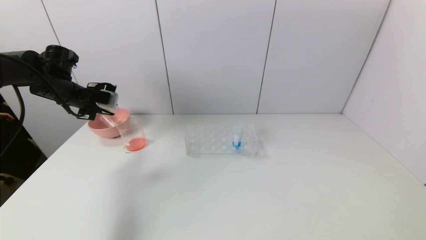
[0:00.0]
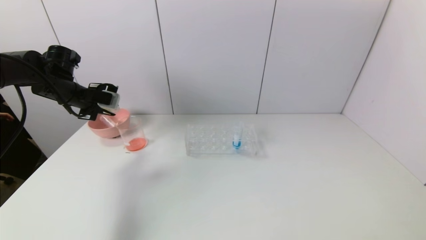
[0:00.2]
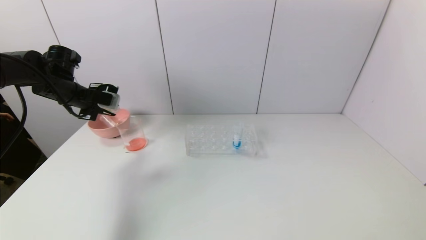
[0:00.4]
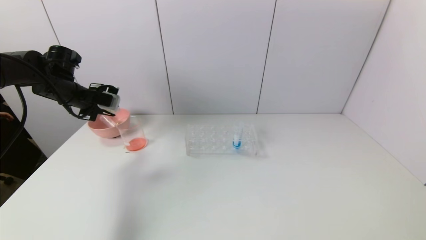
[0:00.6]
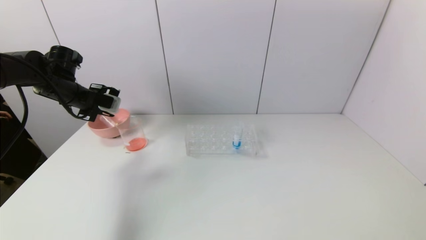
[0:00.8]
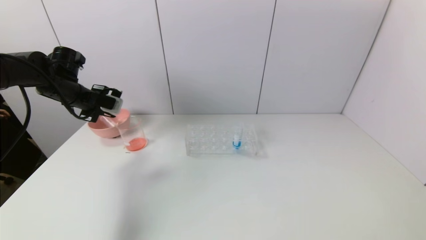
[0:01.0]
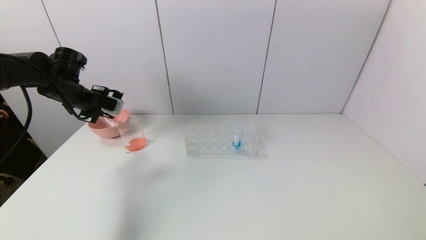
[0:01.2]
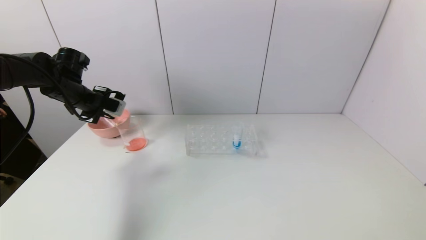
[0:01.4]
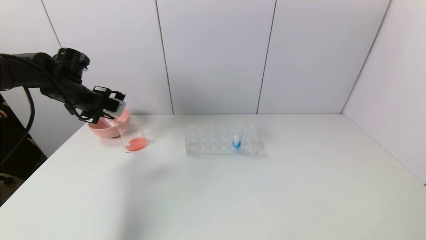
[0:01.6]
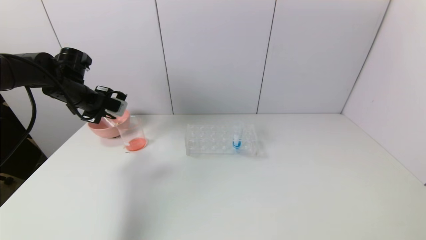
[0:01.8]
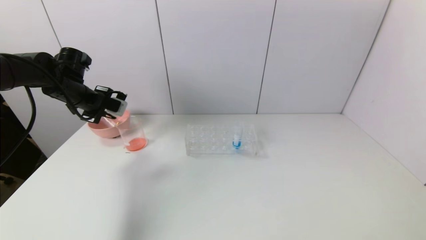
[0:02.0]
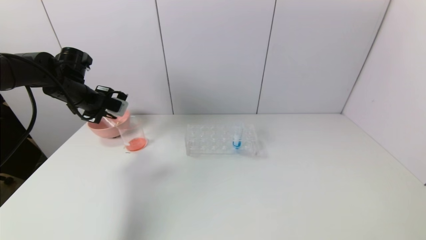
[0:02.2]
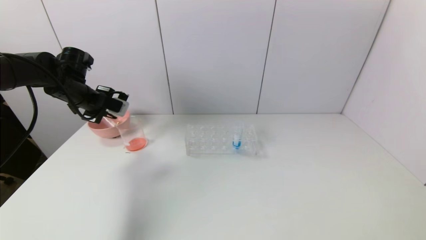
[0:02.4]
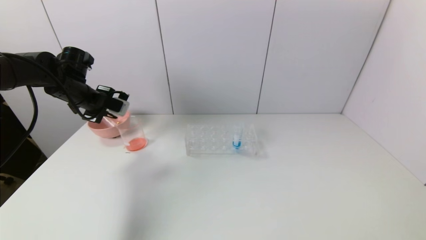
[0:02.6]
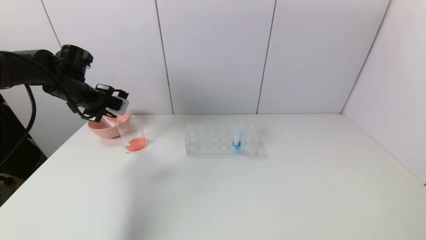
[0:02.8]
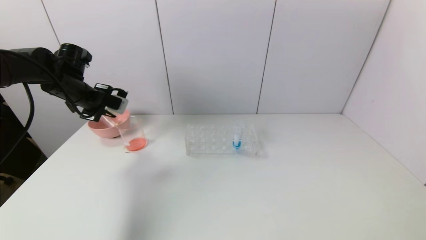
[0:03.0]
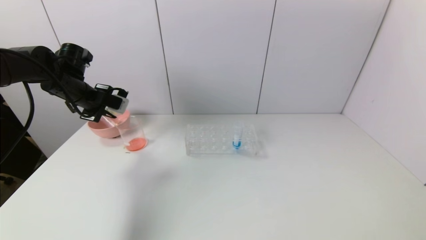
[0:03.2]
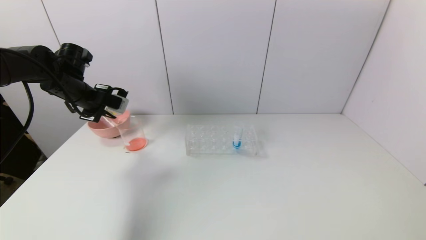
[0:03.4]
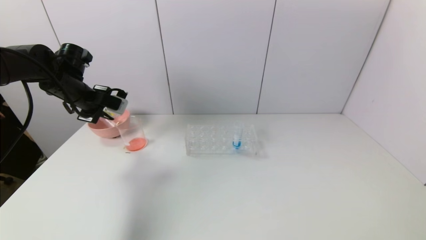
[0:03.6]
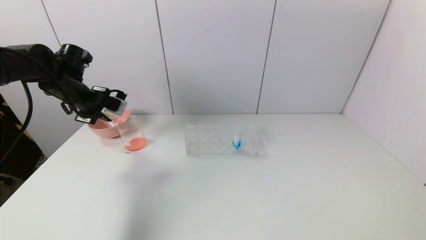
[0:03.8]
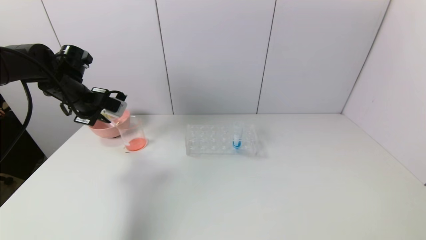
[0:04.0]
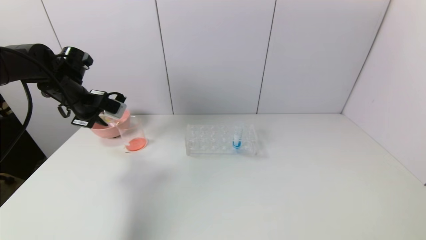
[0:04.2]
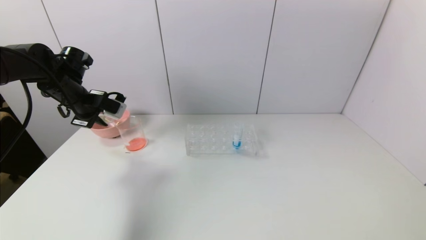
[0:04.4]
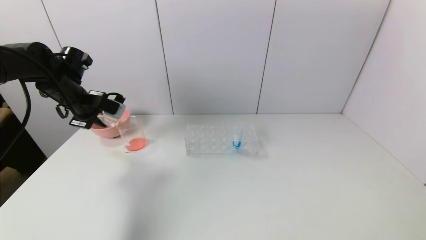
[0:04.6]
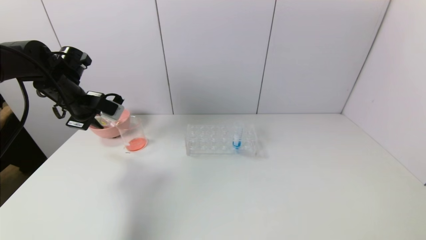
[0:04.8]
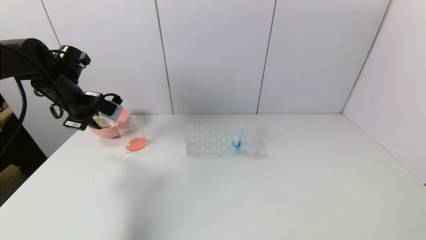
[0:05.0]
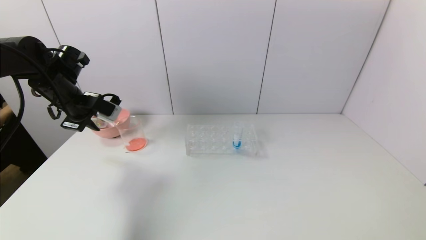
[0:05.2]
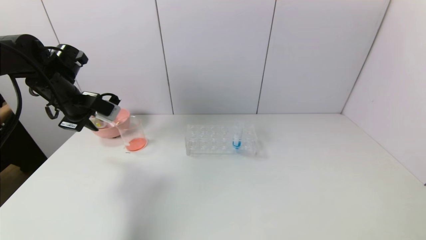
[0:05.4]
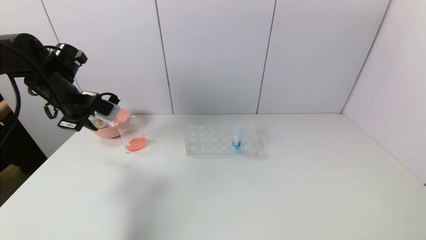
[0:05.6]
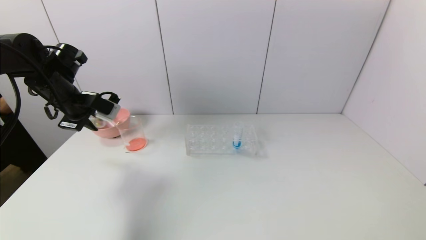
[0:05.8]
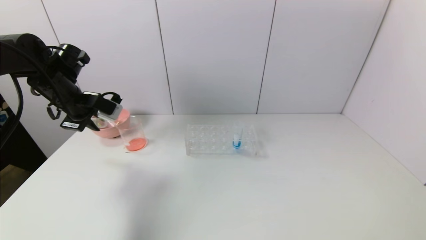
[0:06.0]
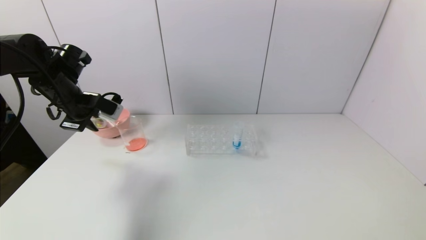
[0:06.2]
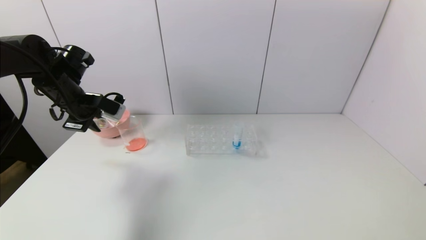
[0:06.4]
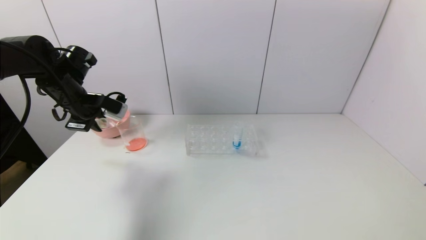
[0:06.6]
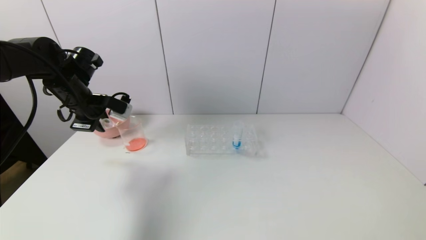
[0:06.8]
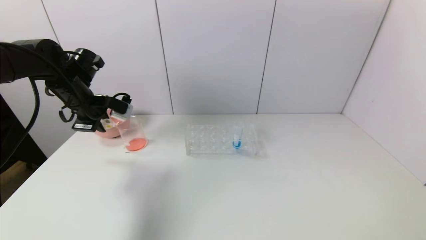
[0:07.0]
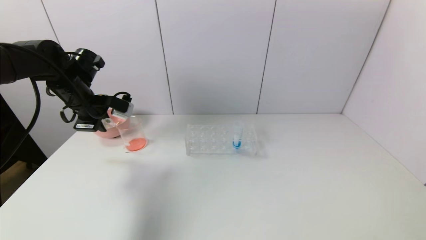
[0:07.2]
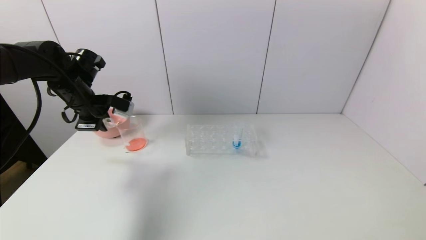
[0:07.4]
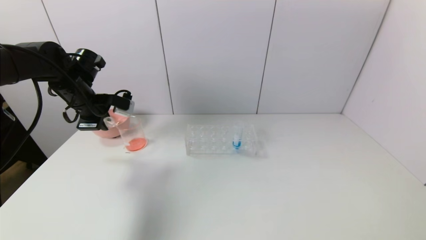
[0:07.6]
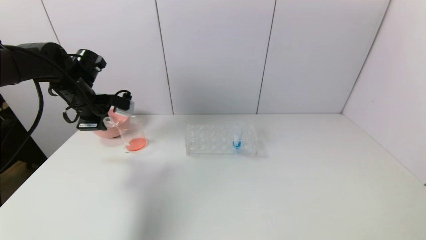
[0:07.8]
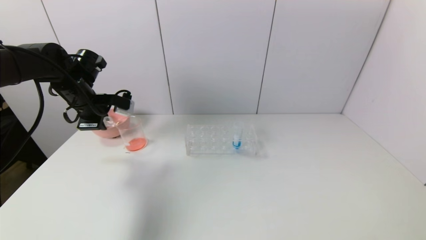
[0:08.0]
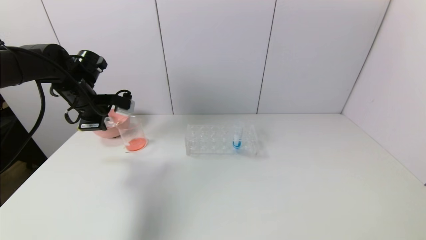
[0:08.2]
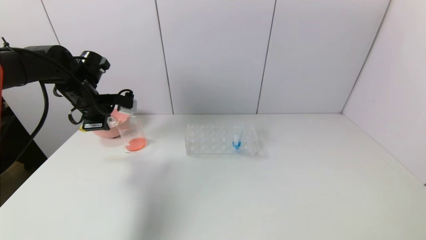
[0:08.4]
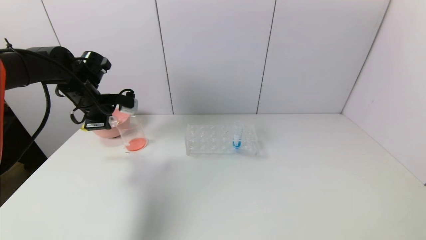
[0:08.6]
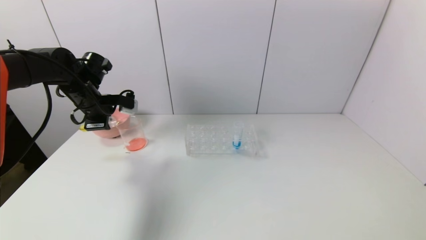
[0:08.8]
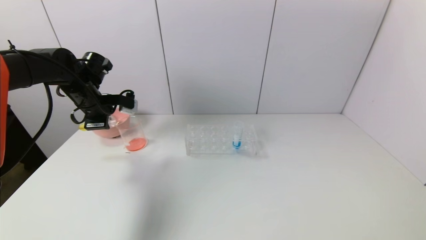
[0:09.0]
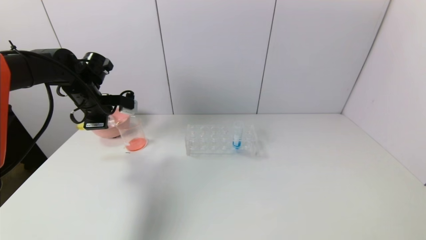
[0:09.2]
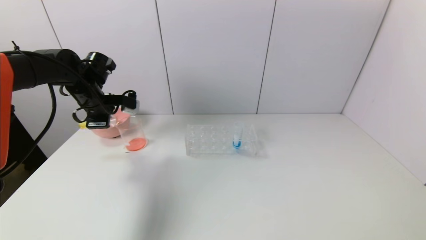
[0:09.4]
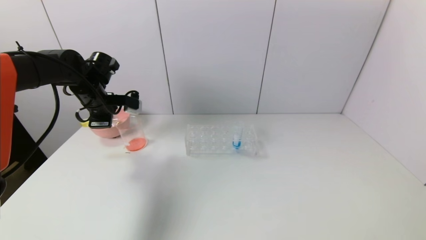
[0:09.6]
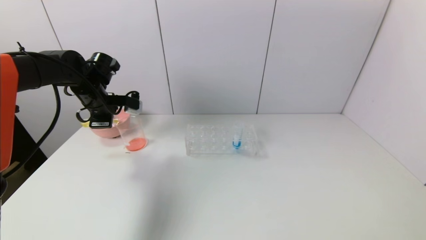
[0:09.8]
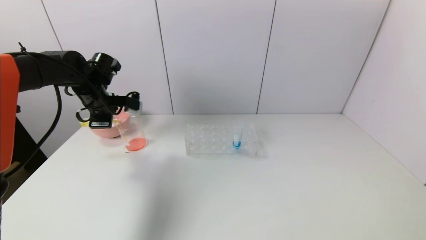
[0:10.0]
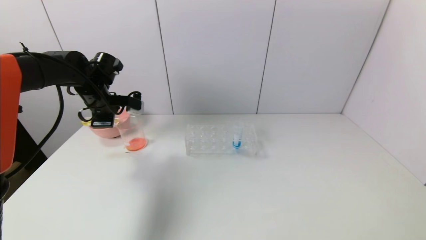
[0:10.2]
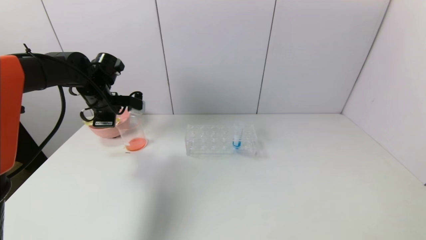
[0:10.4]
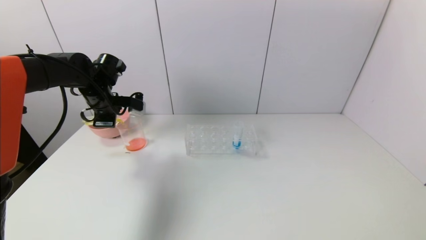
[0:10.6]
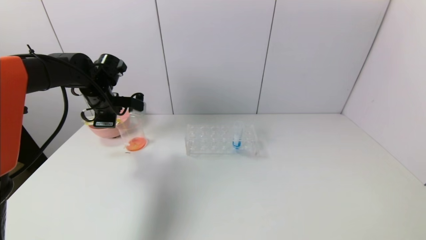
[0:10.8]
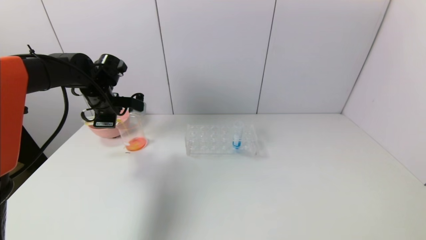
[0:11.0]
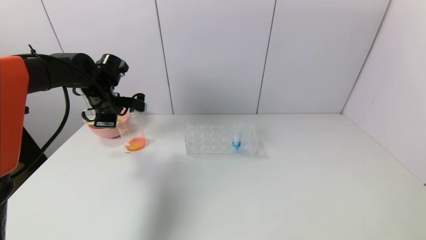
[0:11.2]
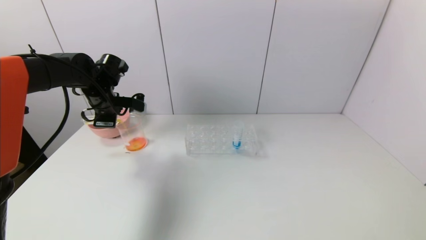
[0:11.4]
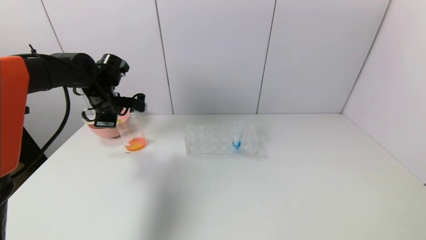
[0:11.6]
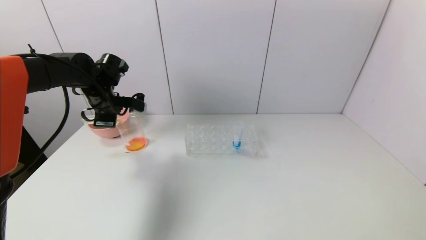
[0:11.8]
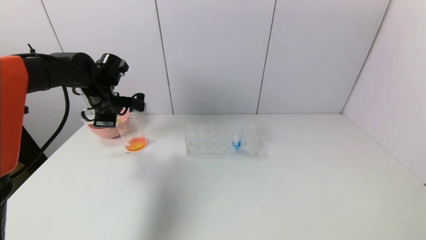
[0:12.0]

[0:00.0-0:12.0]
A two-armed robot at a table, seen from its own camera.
Task of the whole recording: pick up the test tube with yellow pigment and the test tube with red pigment by grippers and pour them into the beaker.
0:00.0 to 0:04.4: The grippers move only a little.
0:04.4 to 0:07.6: The grippers make only small movements.
0:07.6 to 0:10.4: The grippers move only a little.
0:10.4 to 0:12.0: Both grippers stay about where they are.

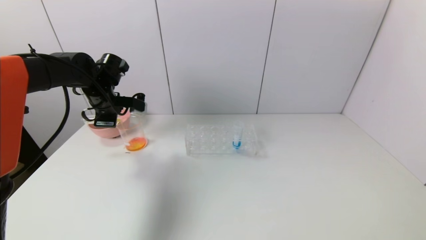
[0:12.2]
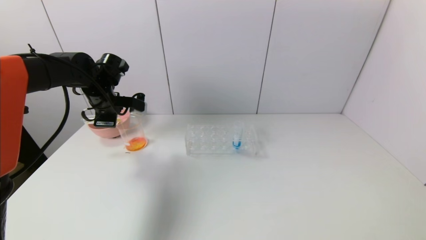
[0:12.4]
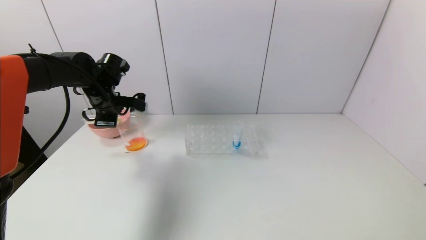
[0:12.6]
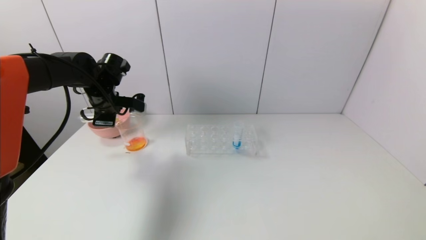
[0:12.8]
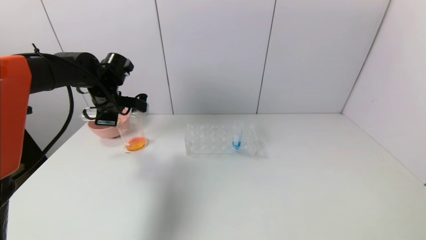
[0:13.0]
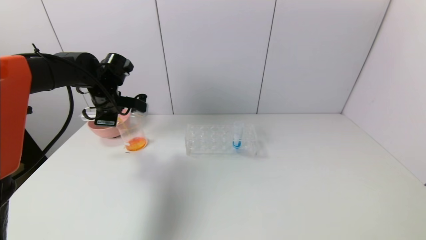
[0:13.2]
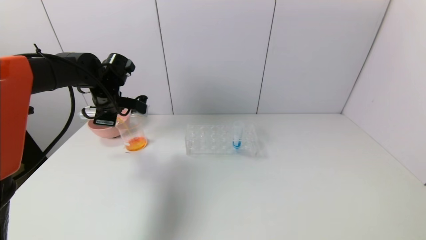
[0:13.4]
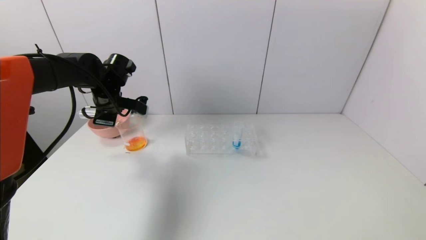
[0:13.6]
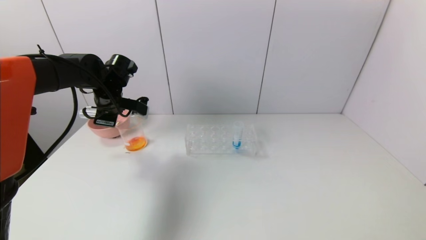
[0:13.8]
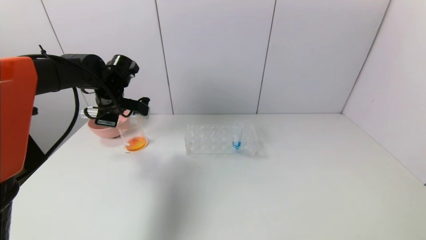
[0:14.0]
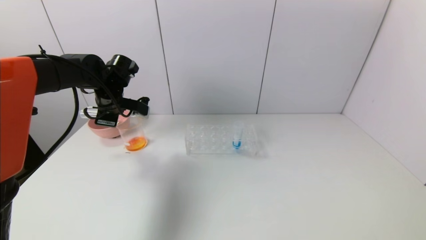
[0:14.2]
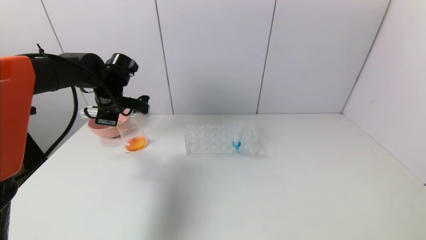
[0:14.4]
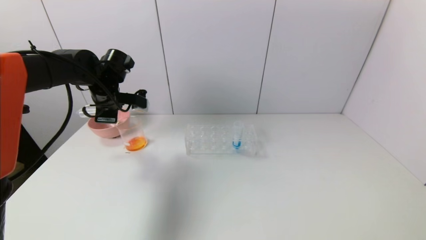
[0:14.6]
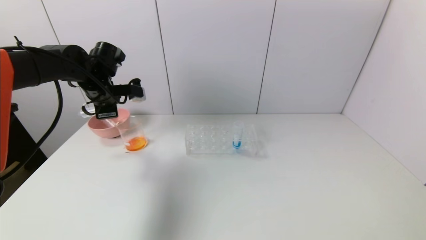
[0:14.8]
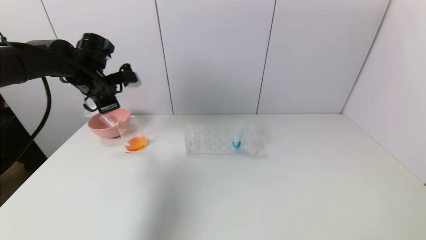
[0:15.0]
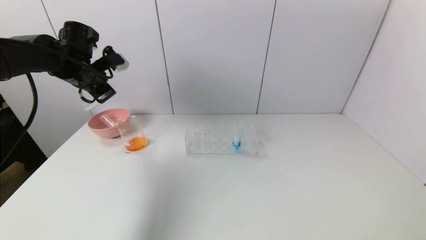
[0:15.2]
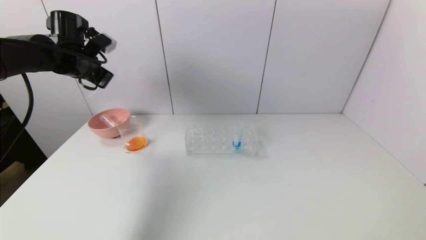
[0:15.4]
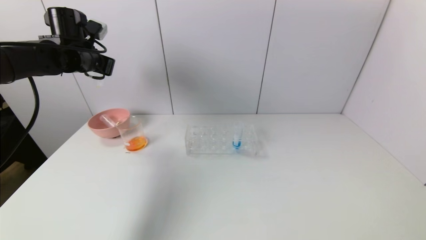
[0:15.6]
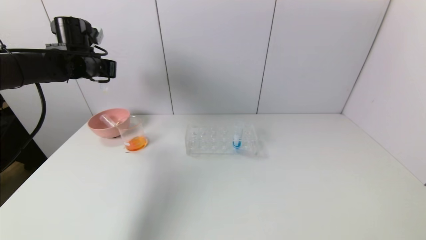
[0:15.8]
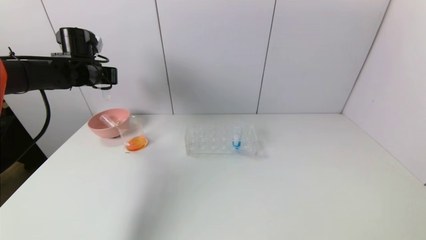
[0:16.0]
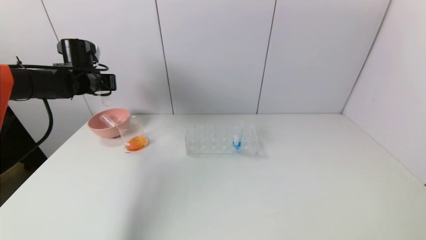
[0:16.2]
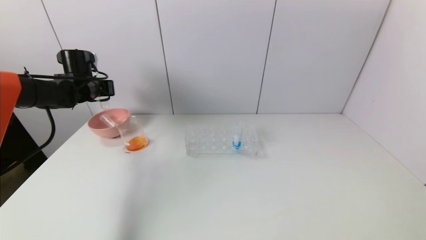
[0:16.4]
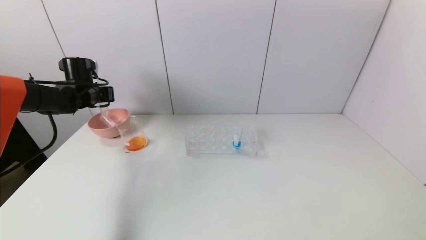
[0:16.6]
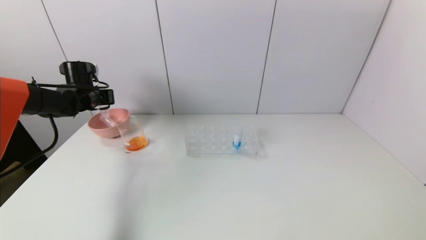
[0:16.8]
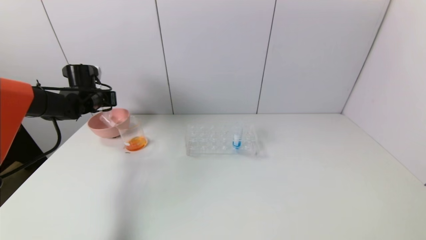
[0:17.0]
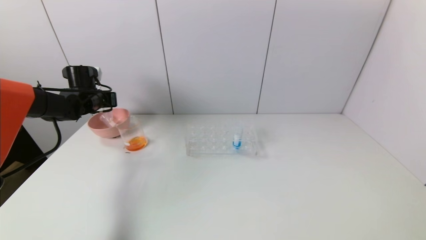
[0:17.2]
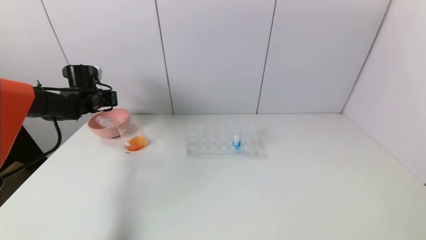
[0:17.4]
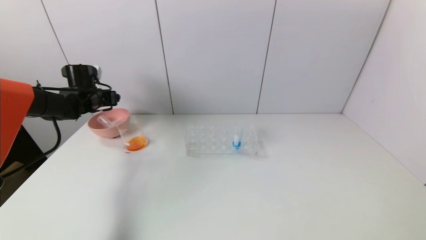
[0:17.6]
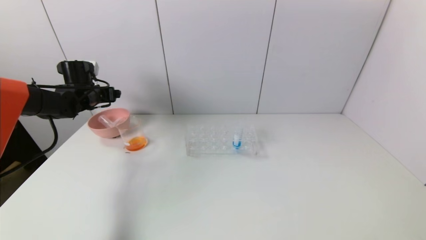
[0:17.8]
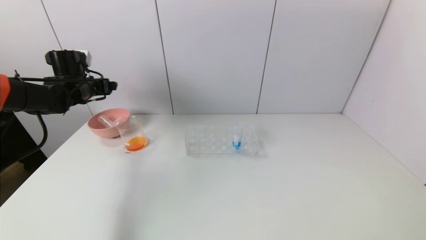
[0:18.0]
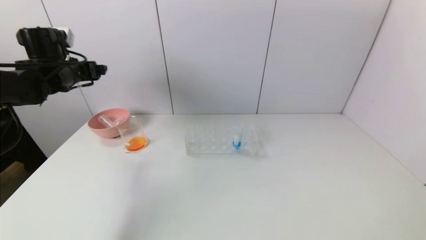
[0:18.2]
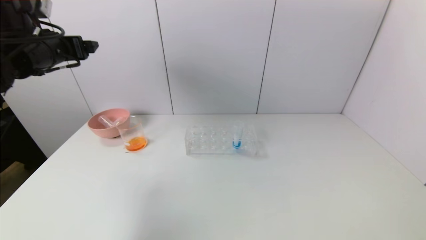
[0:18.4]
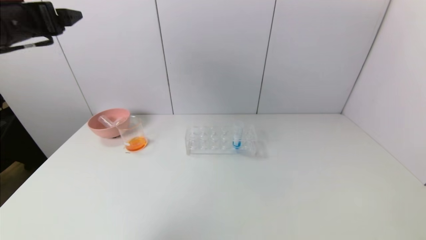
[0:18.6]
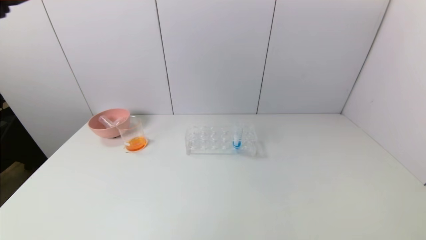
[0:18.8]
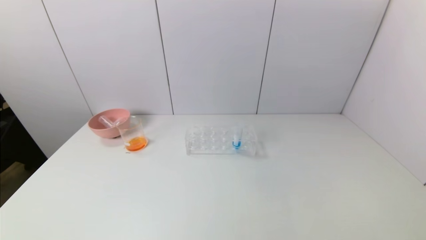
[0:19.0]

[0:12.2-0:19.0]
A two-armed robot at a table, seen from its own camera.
Task of the whole recording: pick up the test tube with yellow pigment and the test tube with red pigment by grippers and pour them into the beaker.
Step, 0:14.2 to 0:17.4: Place the test tube into the pink bowl with the left gripper.
0:12.2 to 0:13.6: The grippers make only small movements.
0:15.0 to 0:16.2: The left gripper changes place by some 5 cm.
0:16.2 to 0:17.6: The left gripper goes roughly 5 cm downward, and opens up.
0:17.6 to 0:19.0: The left gripper heads backward and upward, covering approximately 40 cm.
